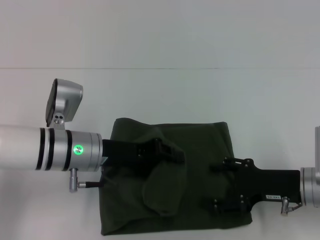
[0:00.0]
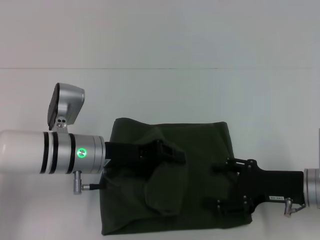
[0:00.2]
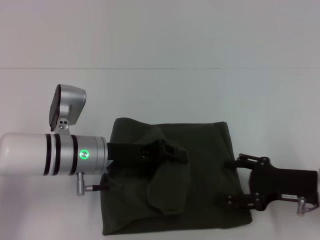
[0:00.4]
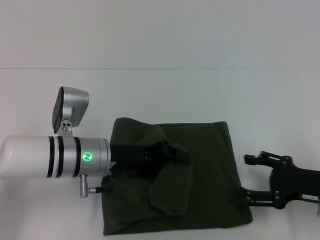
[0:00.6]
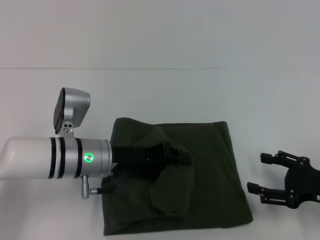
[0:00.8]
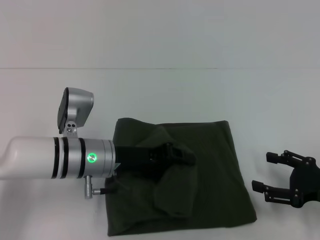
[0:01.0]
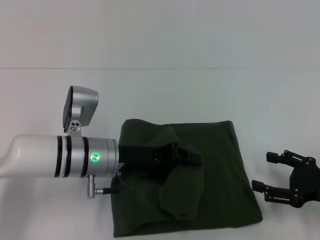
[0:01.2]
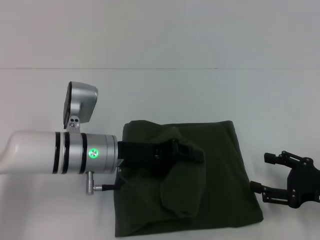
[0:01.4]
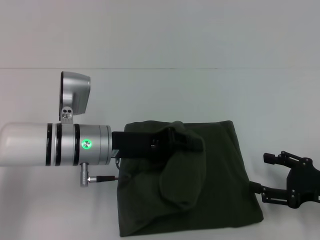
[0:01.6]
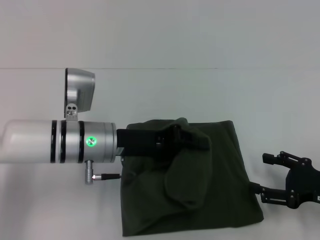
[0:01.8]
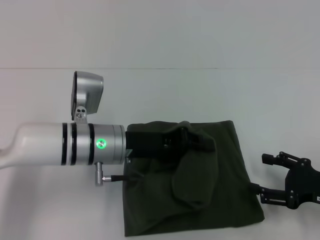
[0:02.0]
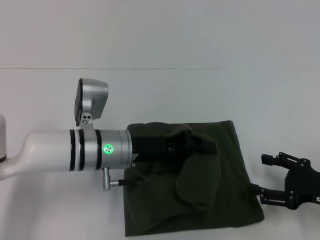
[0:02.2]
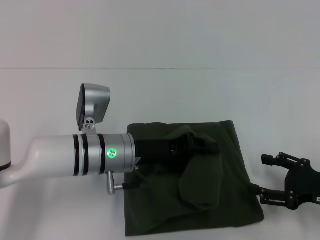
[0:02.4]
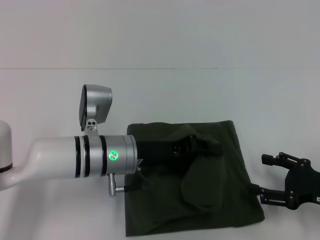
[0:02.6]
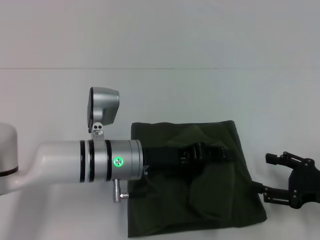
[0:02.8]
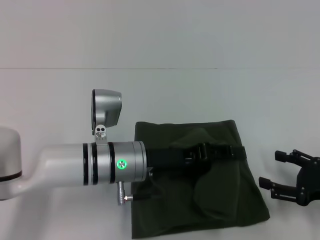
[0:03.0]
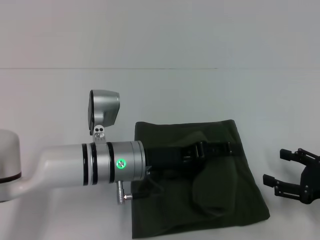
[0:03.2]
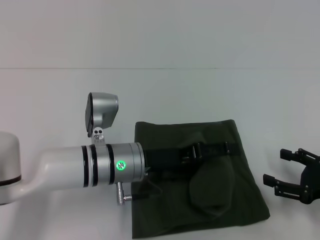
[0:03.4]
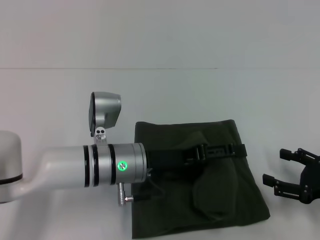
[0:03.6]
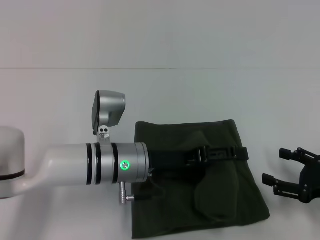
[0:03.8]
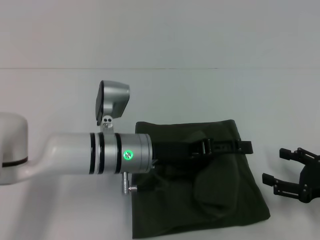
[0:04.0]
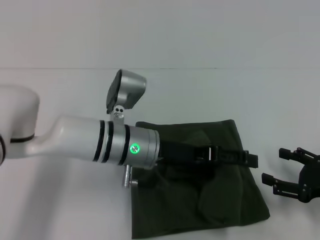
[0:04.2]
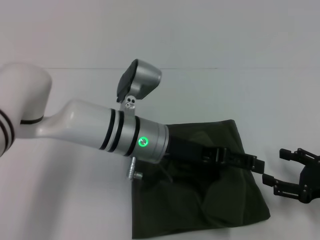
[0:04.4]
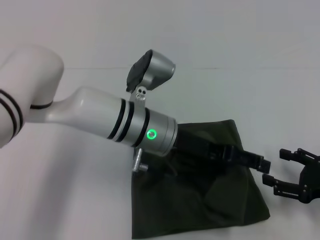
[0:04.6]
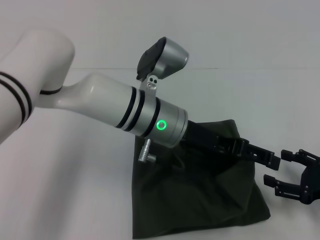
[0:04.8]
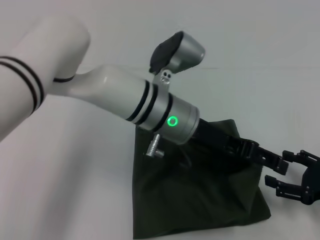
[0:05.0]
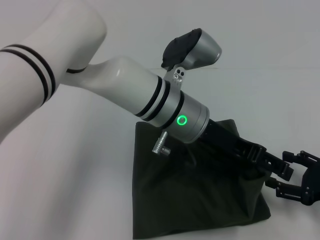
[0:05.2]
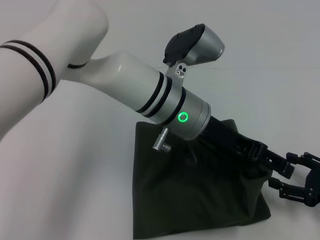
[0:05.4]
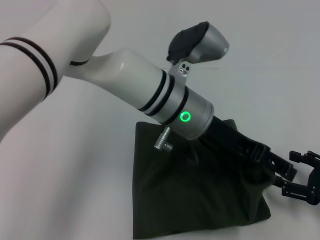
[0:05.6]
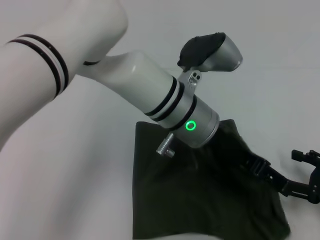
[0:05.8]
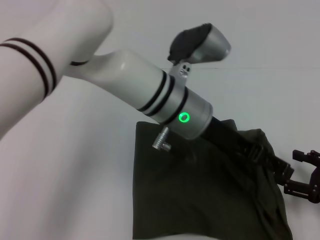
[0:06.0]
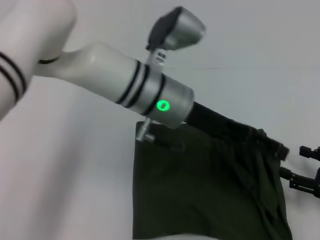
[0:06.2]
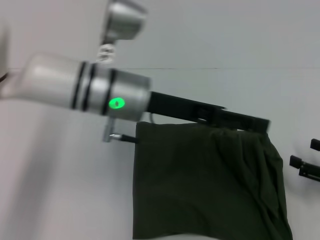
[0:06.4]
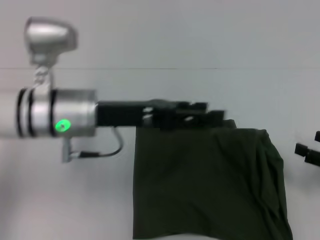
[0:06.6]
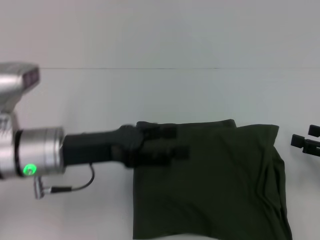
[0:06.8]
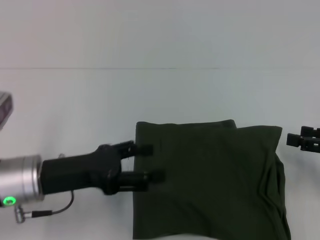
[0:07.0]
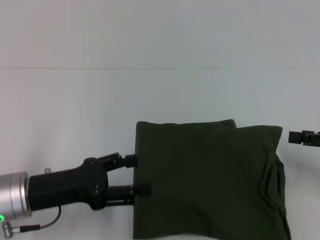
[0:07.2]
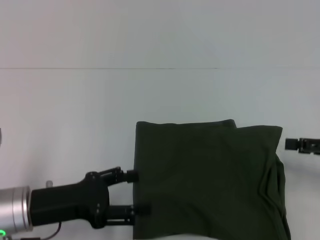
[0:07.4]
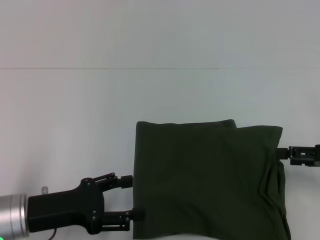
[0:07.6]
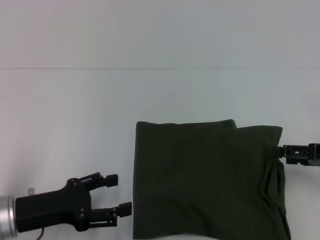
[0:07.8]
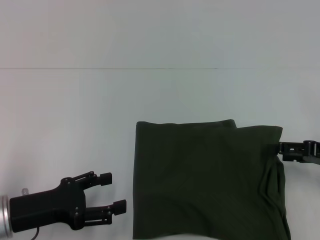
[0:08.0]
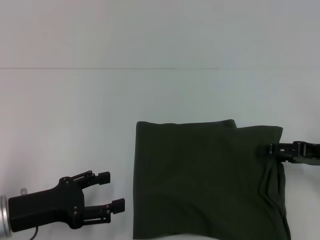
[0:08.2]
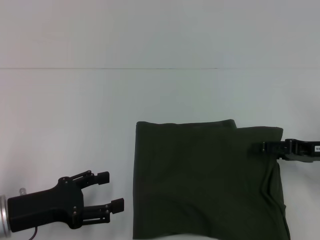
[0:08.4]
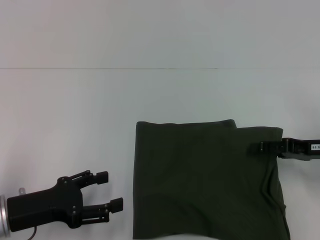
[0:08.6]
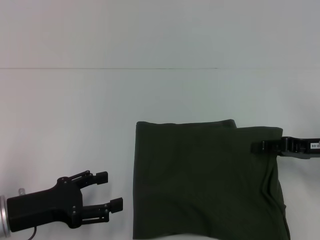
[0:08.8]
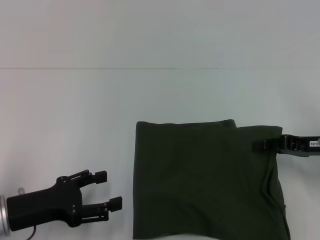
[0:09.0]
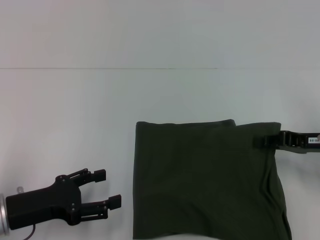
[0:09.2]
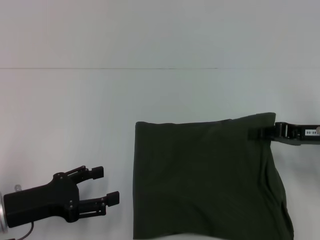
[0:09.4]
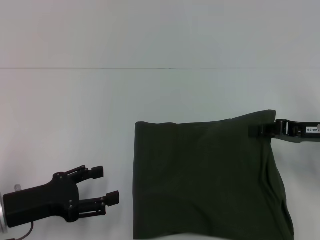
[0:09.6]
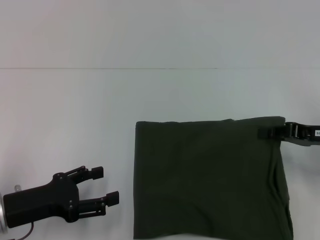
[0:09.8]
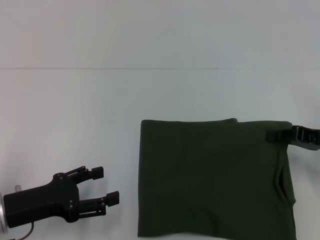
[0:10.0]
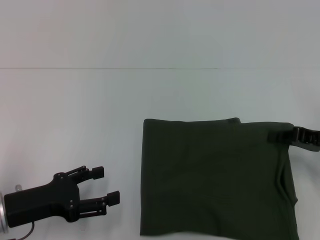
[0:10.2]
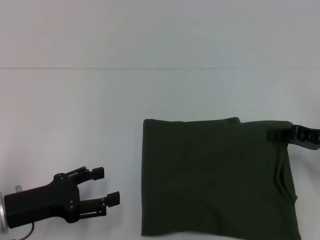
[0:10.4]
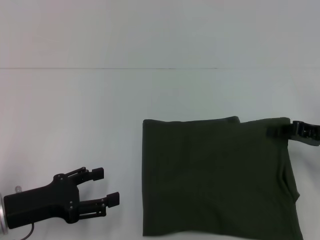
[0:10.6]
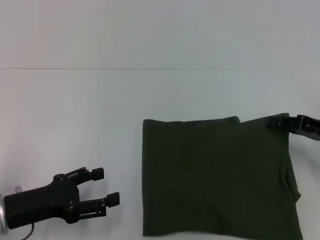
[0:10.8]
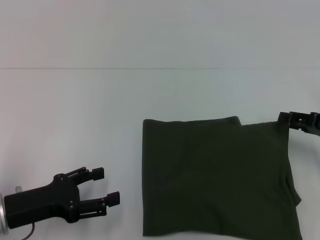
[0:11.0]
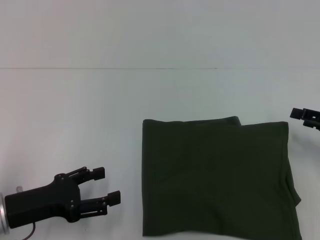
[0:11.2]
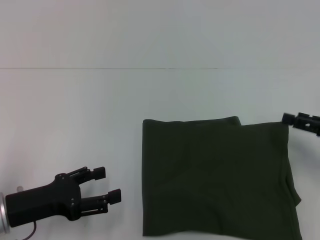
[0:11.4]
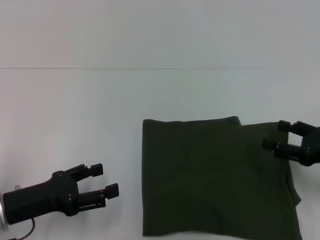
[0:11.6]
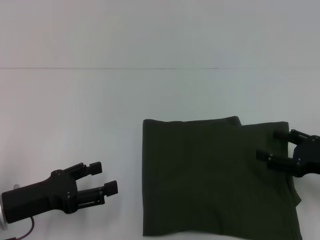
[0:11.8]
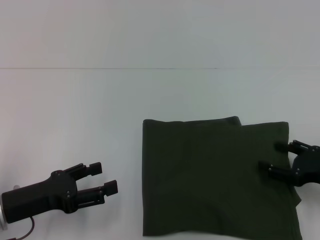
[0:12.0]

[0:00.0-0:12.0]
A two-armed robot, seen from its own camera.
Step, 0:00.0 to 0:07.4: Fold the clothes with your left hand.
0:00.0 to 0:01.6: The right gripper shifts about 5 cm to the right.
0:01.6 to 0:03.0: The left gripper shifts by about 5 cm.
0:03.0 to 0:04.4: The left gripper moves about 5 cm, and opens.
0:04.4 to 0:06.0: The left gripper heads to the right and upward, covering about 10 cm.
0:06.0 to 0:07.6: The left gripper goes approximately 30 cm to the left, backward and downward, while the right gripper goes about 10 cm upward and forward.
0:07.6 to 0:09.0: The right gripper ends up approximately 5 cm from where it was.
0:09.0 to 0:10.4: The right gripper closes up.
0:10.4 to 0:12.0: The right gripper is displaced backward by about 5 cm, and opens its fingers.

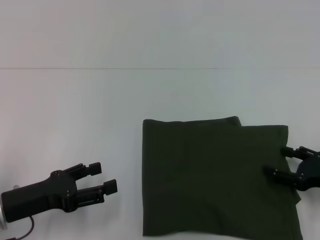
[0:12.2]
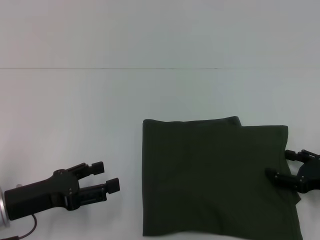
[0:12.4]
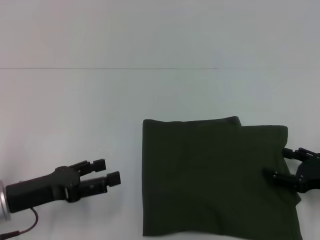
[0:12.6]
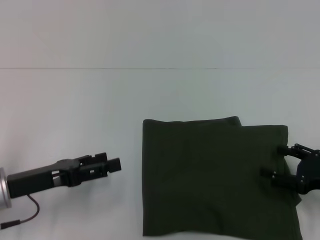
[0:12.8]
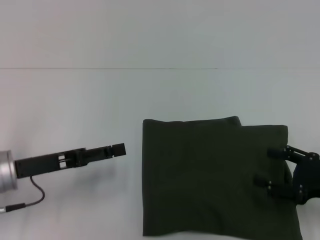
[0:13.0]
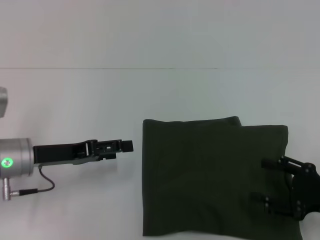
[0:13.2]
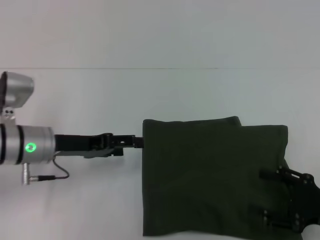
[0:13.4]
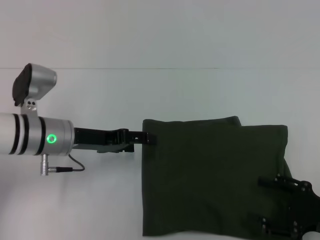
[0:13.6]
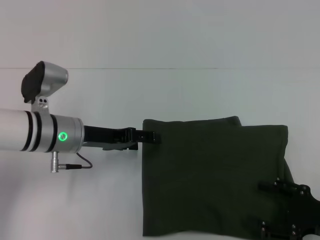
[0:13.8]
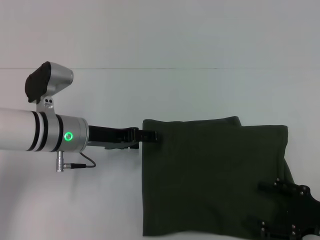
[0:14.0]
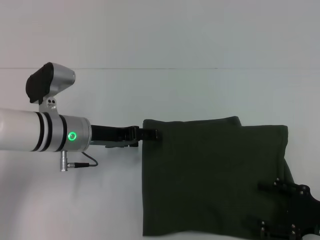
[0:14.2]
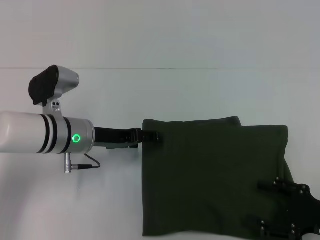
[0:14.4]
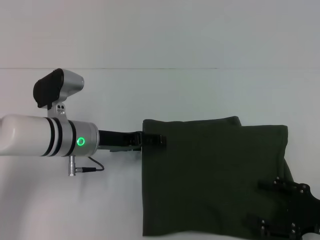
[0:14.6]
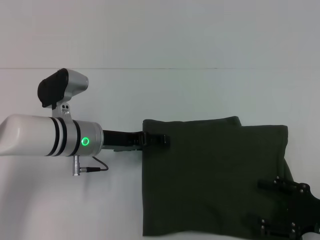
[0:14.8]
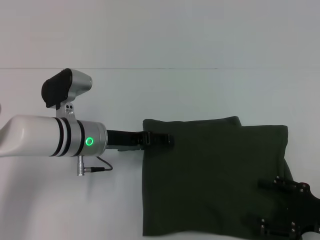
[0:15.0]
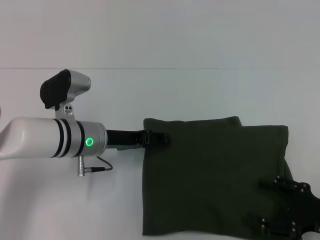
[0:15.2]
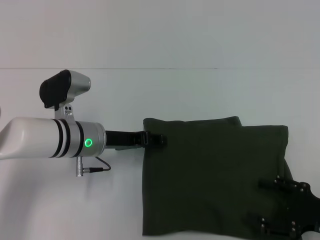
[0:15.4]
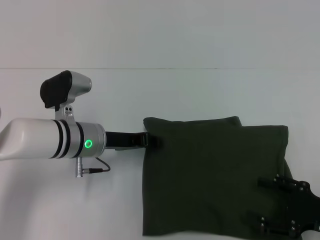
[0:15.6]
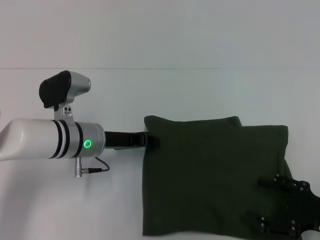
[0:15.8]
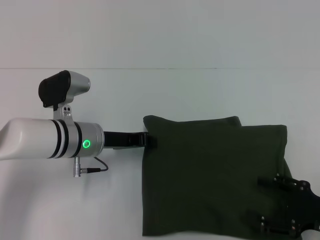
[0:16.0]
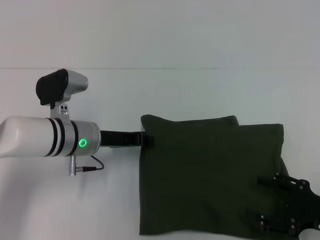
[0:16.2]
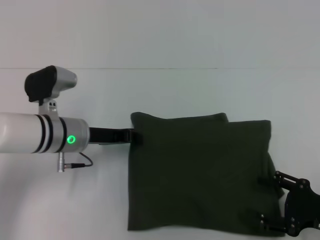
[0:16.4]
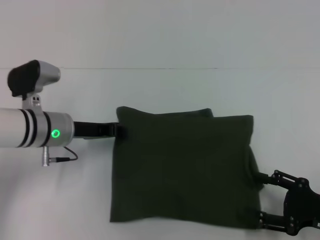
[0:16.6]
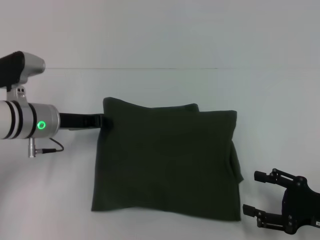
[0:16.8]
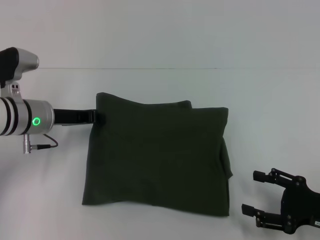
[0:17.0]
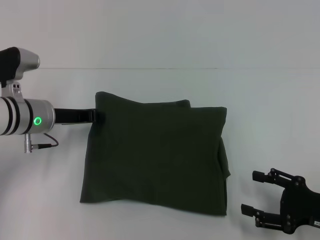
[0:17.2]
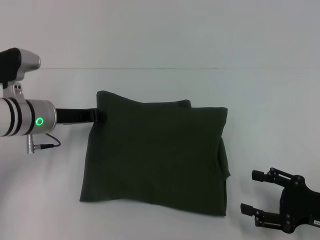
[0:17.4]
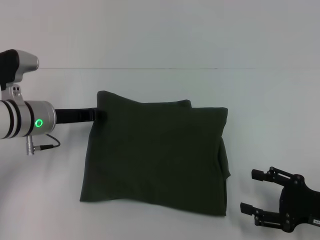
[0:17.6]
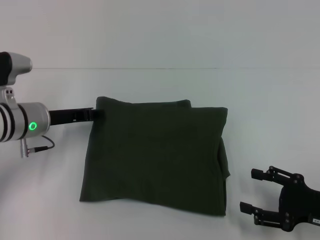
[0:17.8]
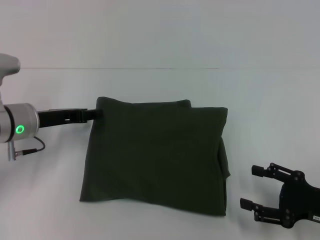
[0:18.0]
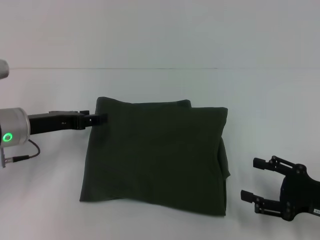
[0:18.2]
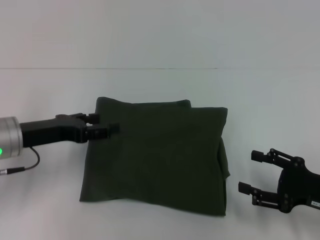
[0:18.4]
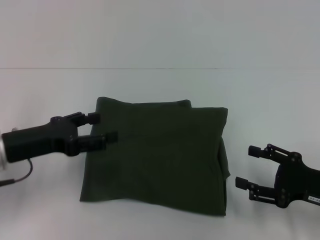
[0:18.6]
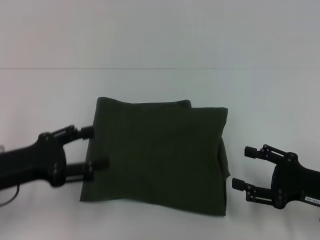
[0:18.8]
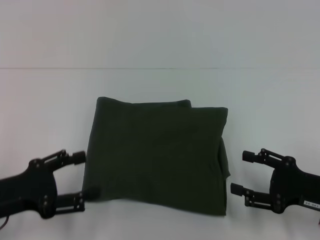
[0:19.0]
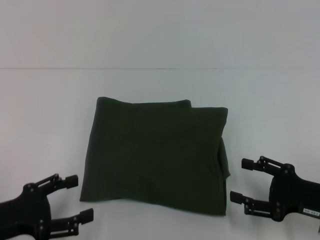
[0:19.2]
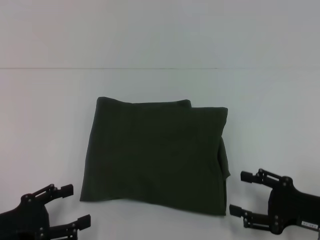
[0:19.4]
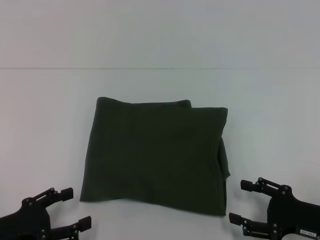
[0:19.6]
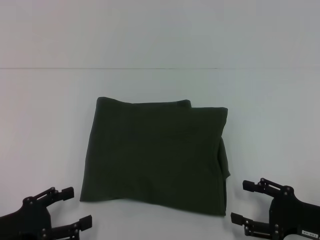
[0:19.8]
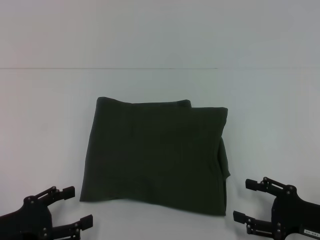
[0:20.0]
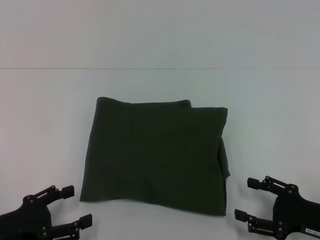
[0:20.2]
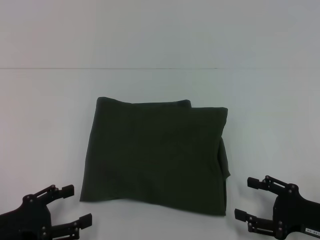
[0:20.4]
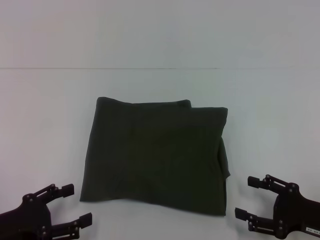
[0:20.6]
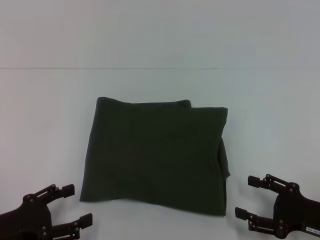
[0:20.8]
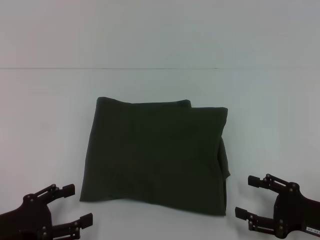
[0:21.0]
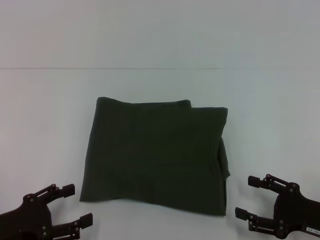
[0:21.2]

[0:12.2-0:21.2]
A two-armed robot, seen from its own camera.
0:12.2 to 0:13.8: The right gripper heads backward, covering approximately 5 cm. Meanwhile the left gripper heads forward and to the right, covering about 15 cm.
0:13.8 to 0:15.2: The grippers move only a little.
0:15.2 to 0:16.6: The left gripper travels to the left by roughly 5 cm, and closes up.
0:16.6 to 0:18.2: The left gripper heads to the left, covering some 5 cm, and opens its fingers.
0:18.2 to 0:19.8: The left gripper heads backward, covering roughly 15 cm, and opens up.
0:19.8 to 0:21.2: Both grippers stay put.

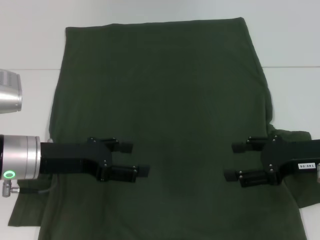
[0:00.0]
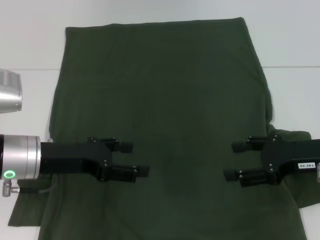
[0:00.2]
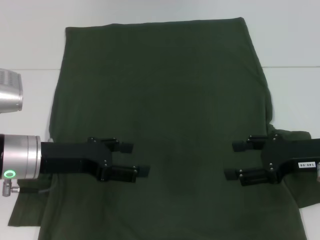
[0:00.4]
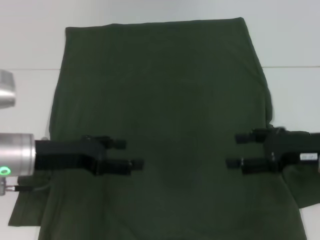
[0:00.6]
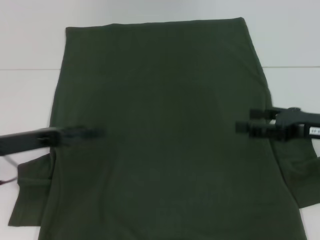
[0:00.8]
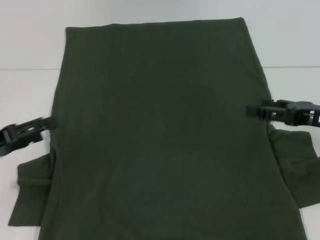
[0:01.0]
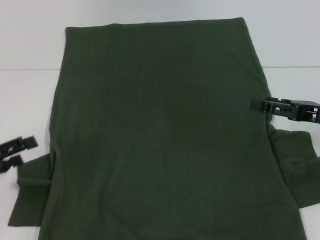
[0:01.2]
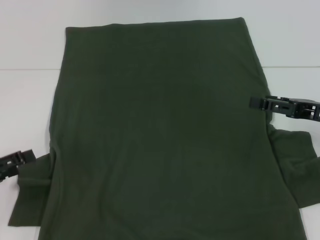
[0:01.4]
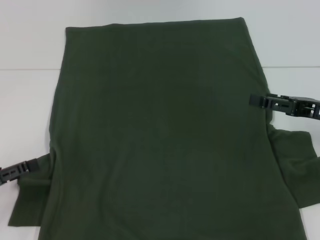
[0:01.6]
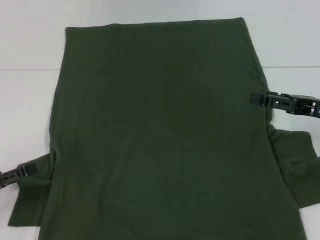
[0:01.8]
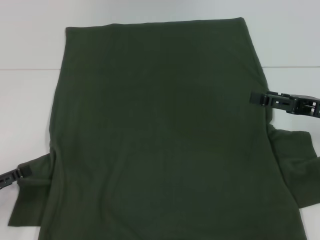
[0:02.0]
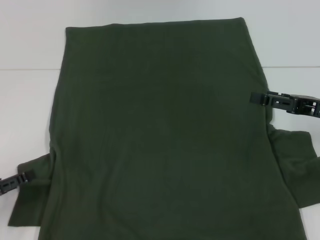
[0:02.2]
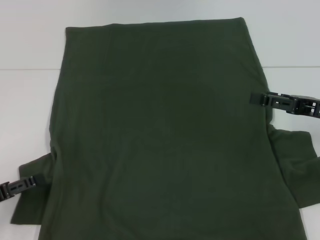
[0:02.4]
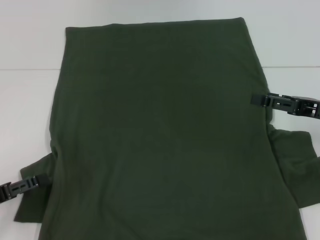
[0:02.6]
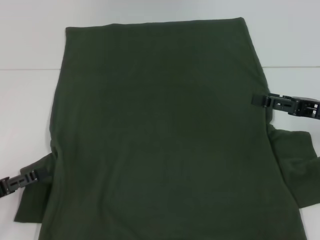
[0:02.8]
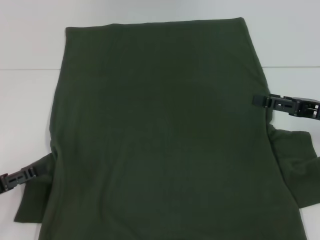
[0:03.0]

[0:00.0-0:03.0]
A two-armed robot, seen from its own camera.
0:00.0 to 0:01.6: The left gripper shifts some 15 cm to the left and backward.
0:01.6 to 0:03.0: The grippers move only a little.
